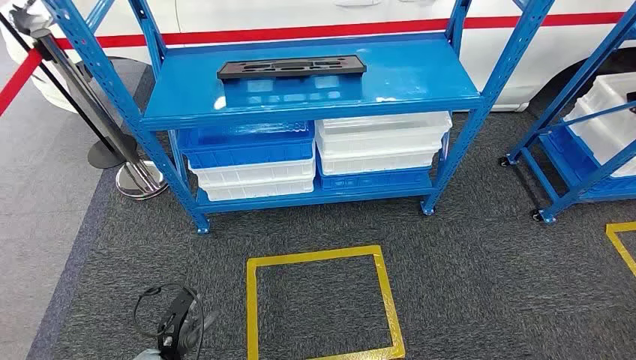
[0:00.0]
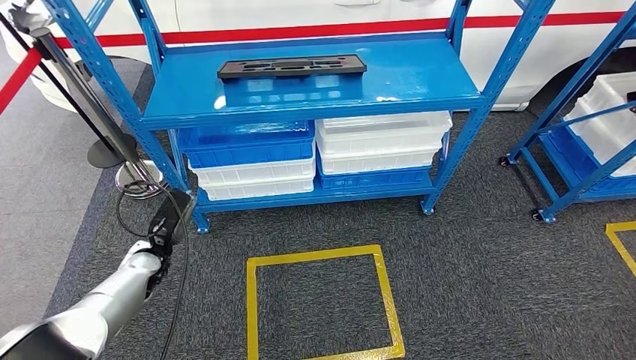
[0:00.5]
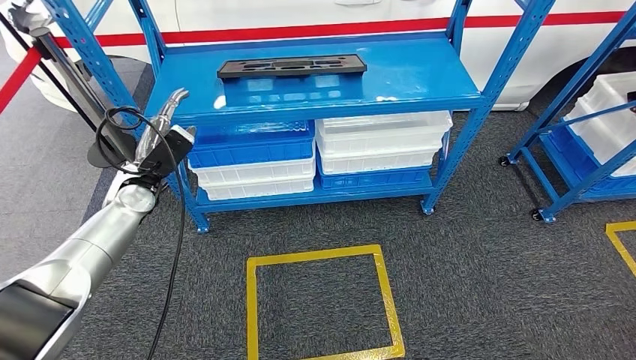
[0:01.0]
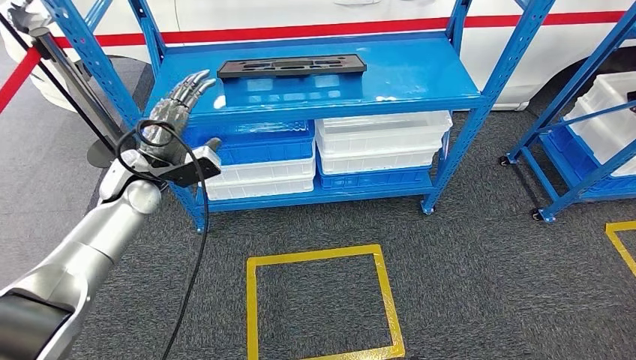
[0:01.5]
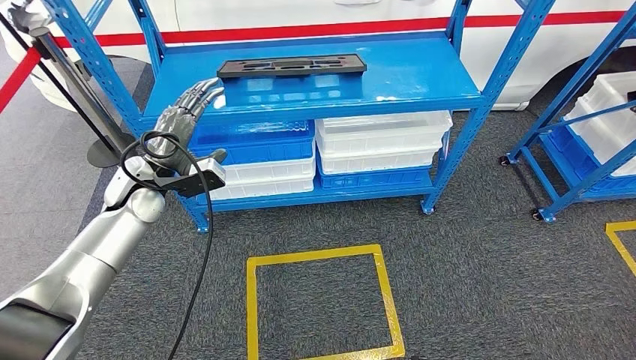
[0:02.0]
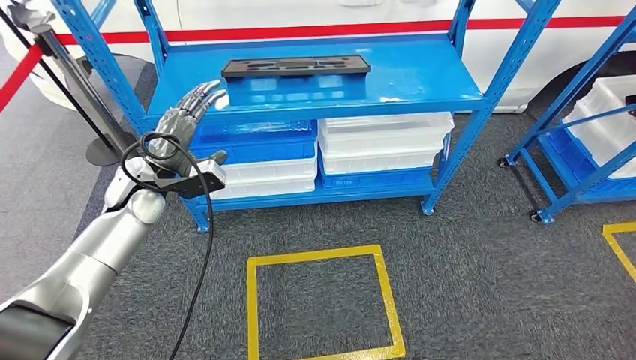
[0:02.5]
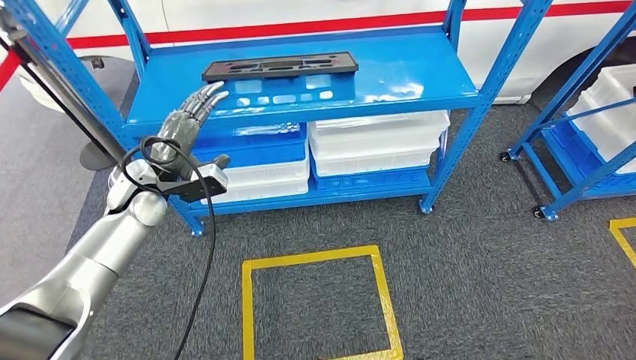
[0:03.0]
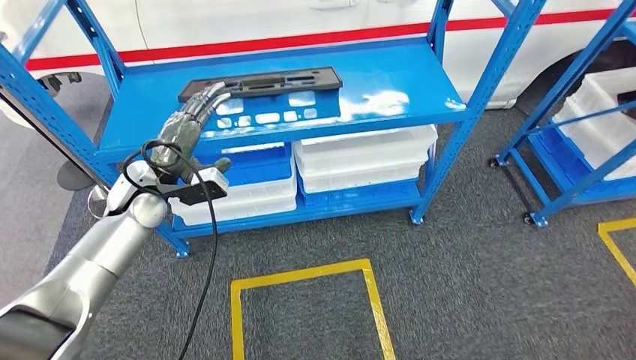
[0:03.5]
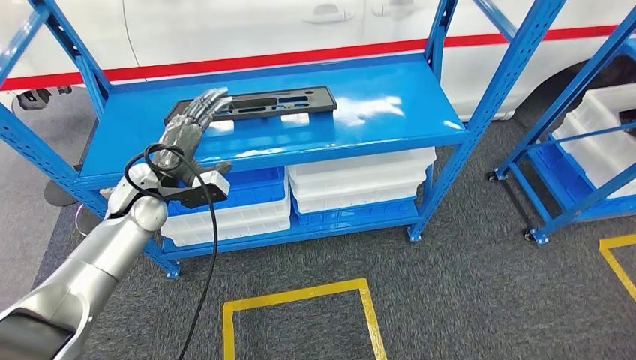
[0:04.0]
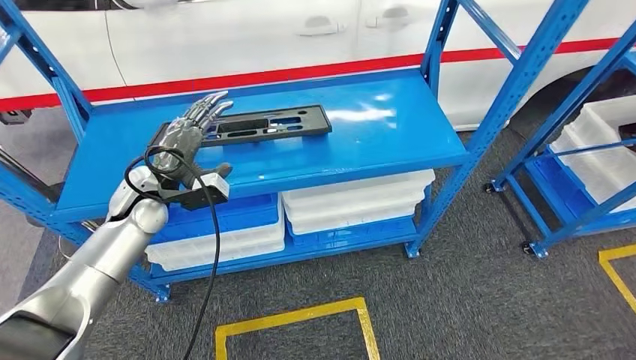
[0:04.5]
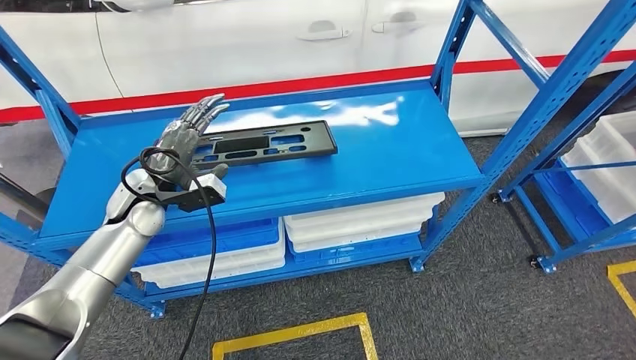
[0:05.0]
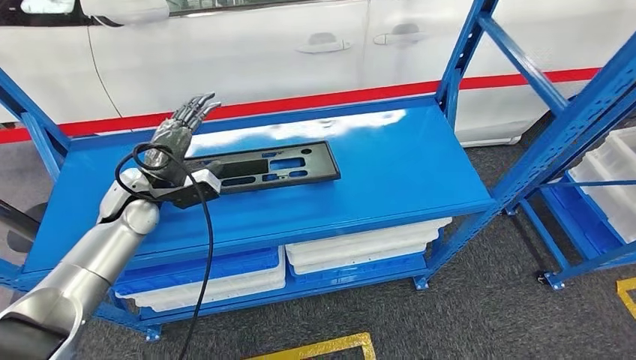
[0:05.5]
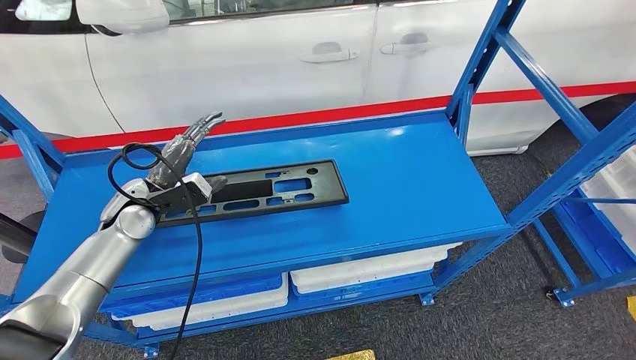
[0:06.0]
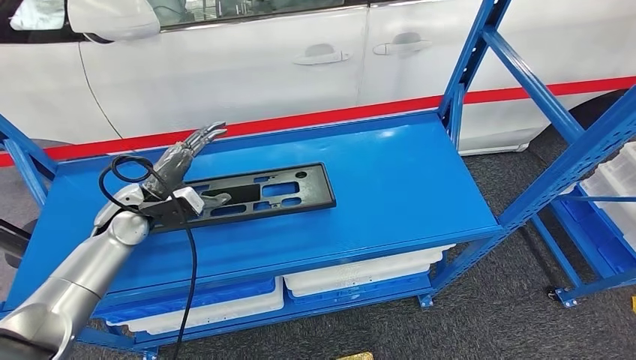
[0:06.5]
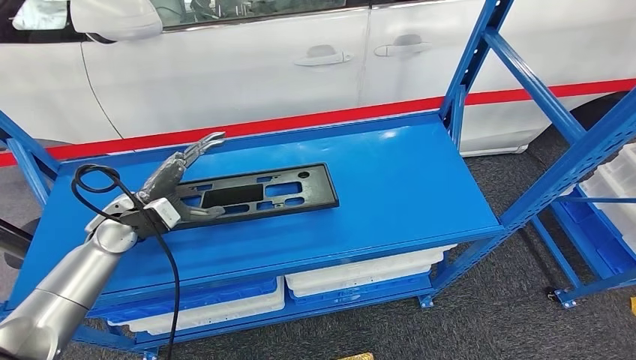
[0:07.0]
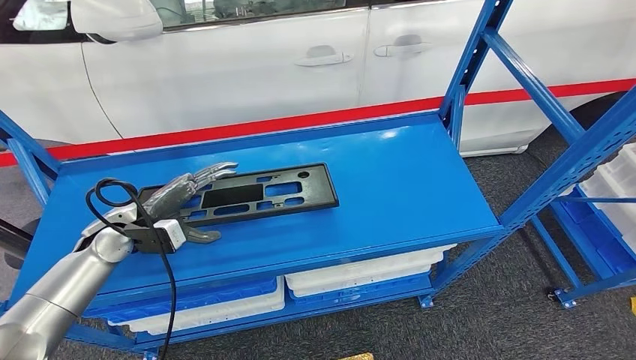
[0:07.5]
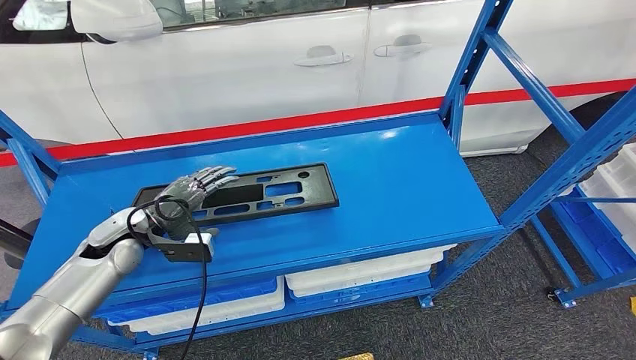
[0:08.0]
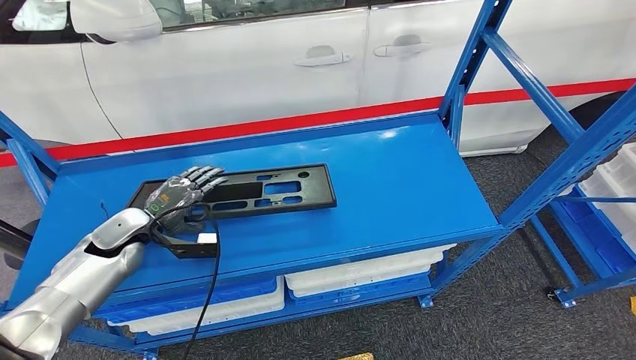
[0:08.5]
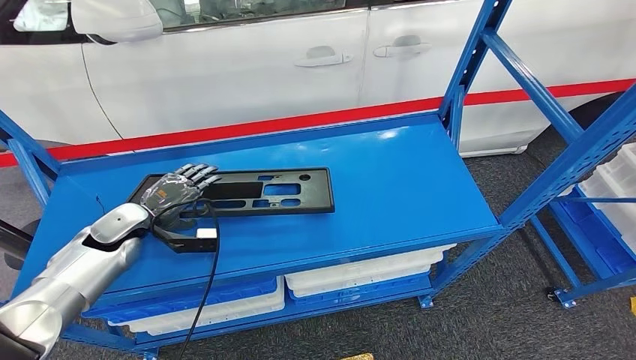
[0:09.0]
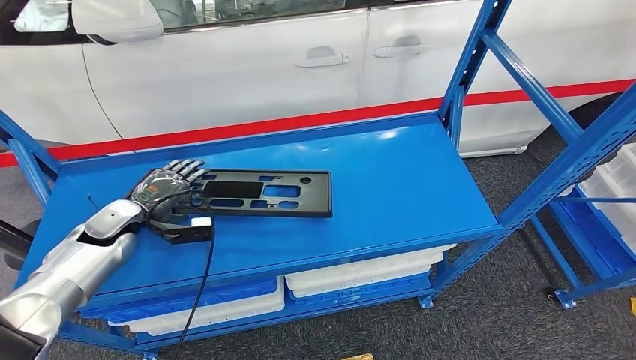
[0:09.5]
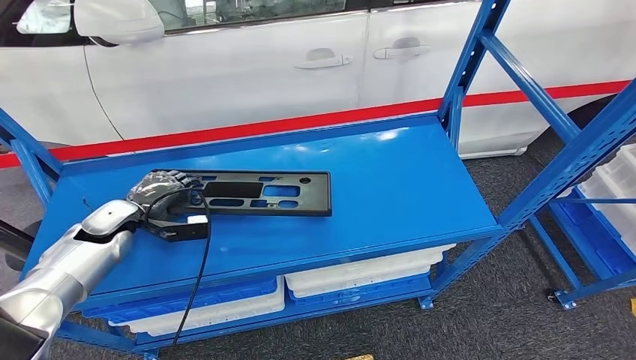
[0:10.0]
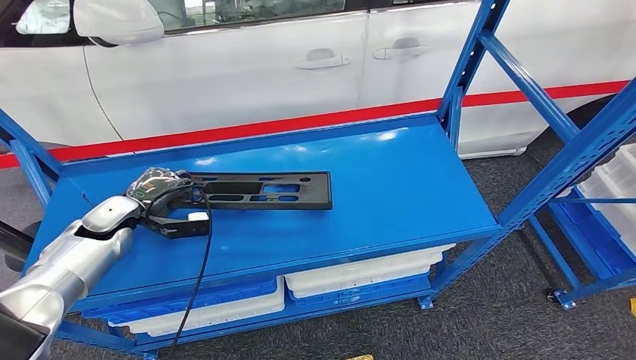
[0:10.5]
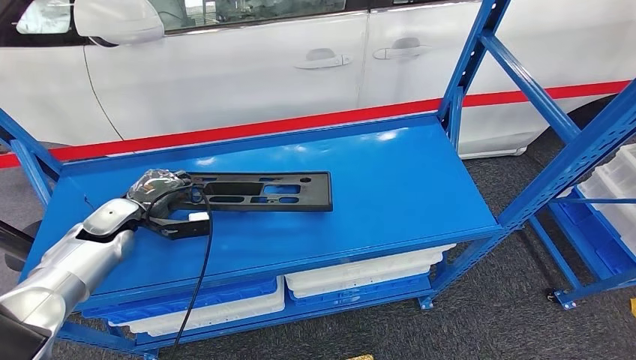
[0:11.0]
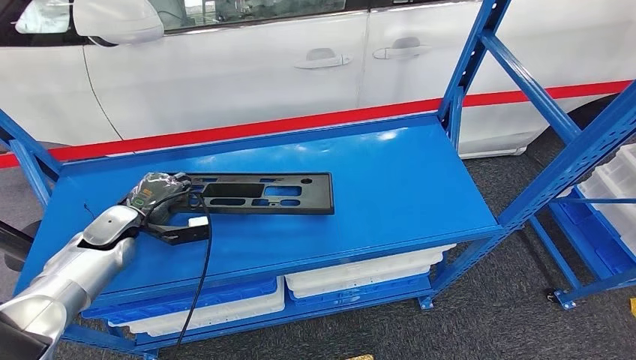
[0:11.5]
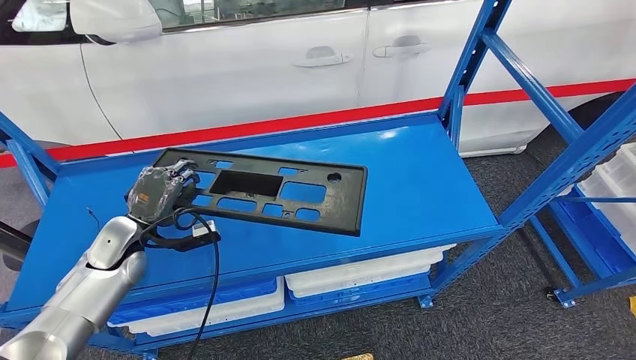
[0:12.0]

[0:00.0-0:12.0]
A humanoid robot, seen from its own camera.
0:08.0 to 0:10.0: The left hand moves some 5 cm.

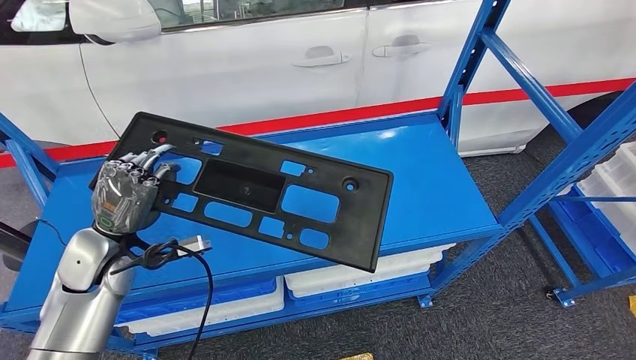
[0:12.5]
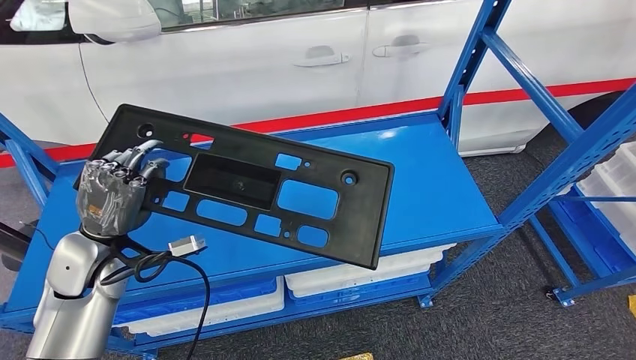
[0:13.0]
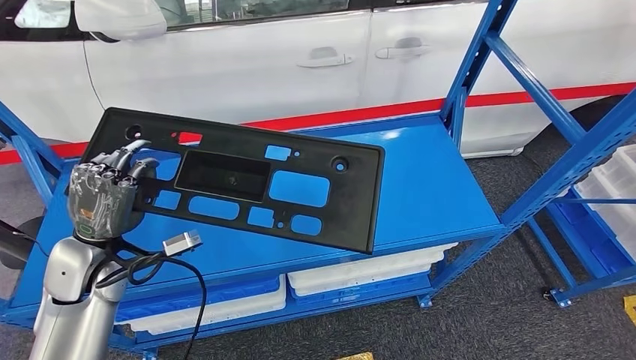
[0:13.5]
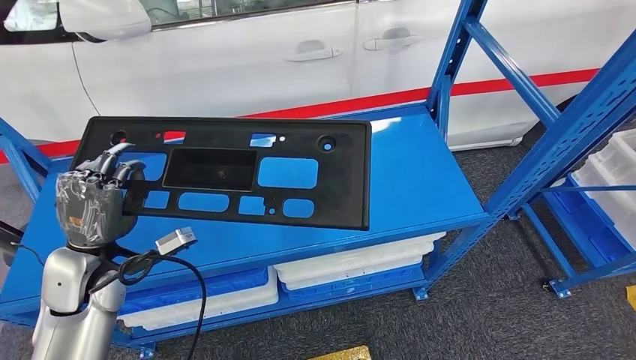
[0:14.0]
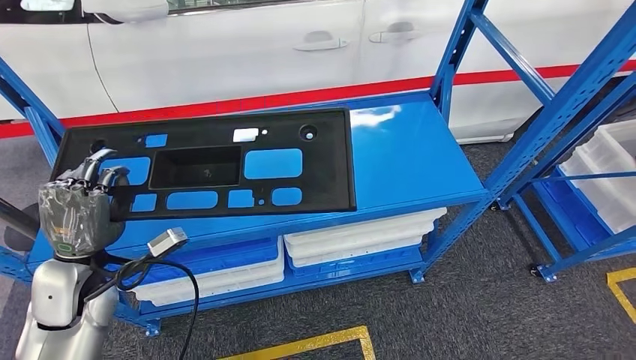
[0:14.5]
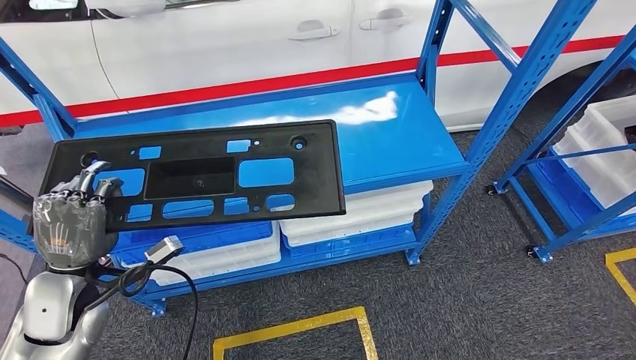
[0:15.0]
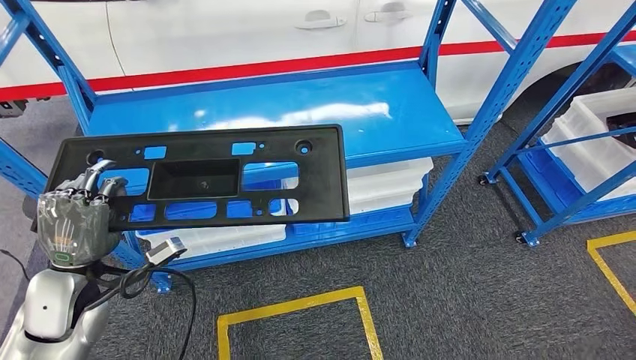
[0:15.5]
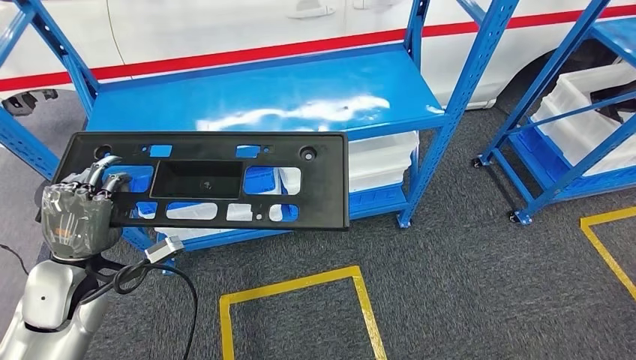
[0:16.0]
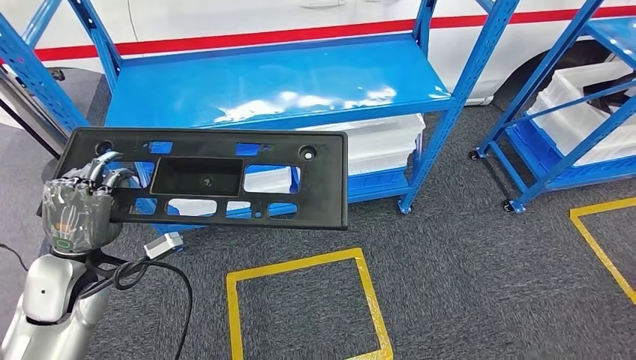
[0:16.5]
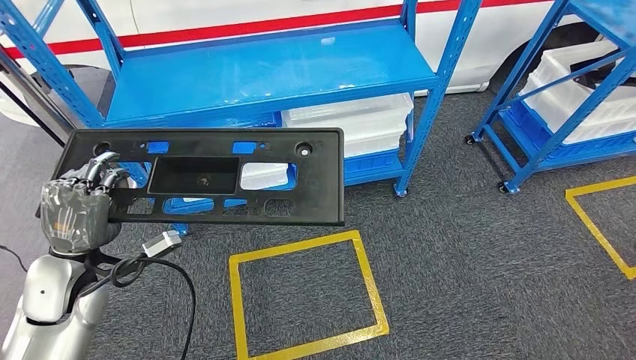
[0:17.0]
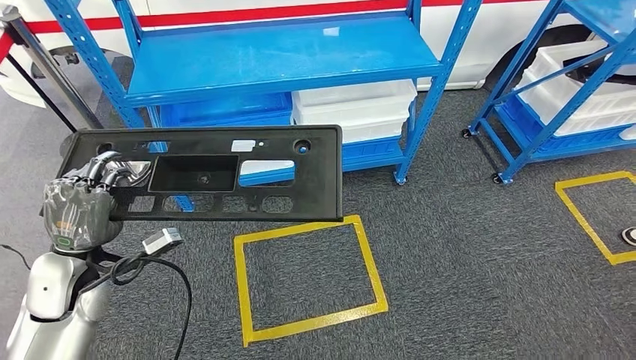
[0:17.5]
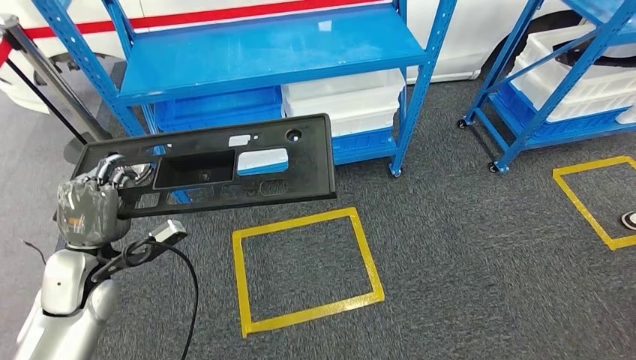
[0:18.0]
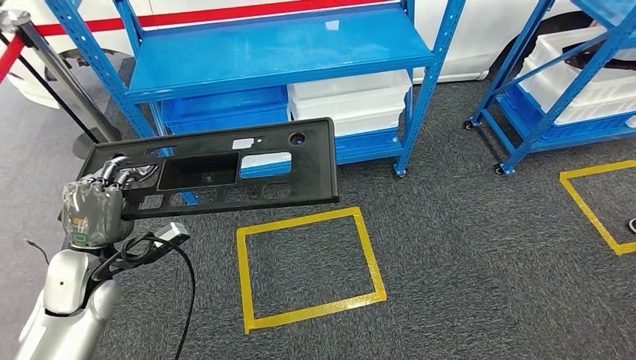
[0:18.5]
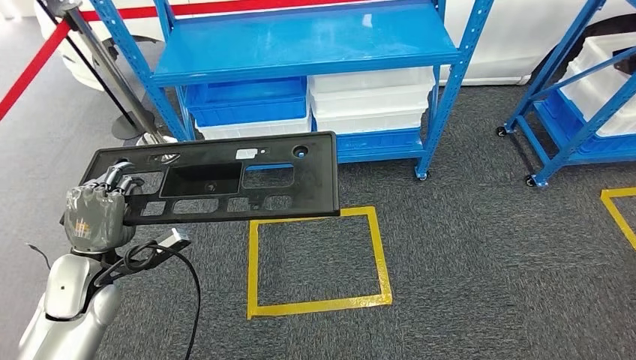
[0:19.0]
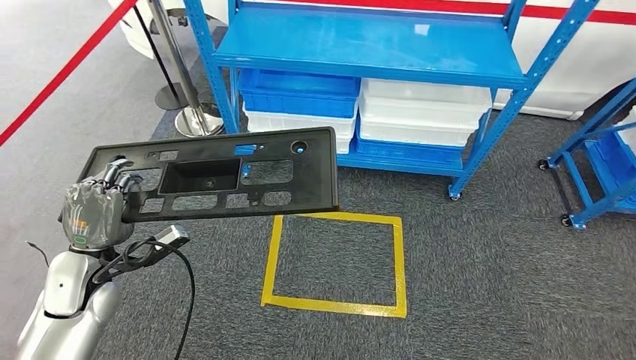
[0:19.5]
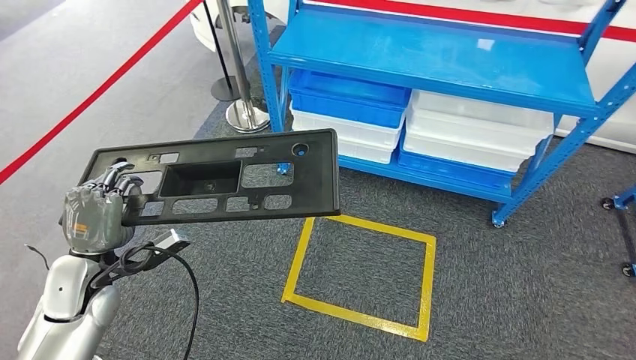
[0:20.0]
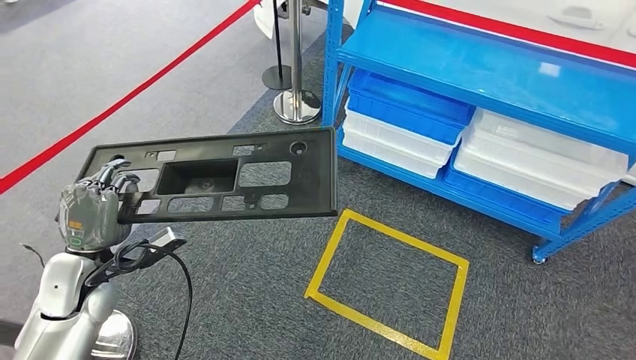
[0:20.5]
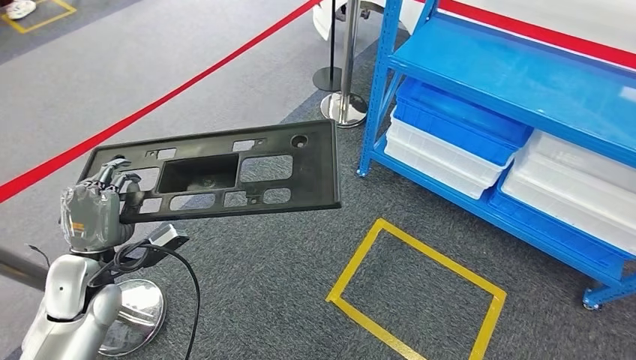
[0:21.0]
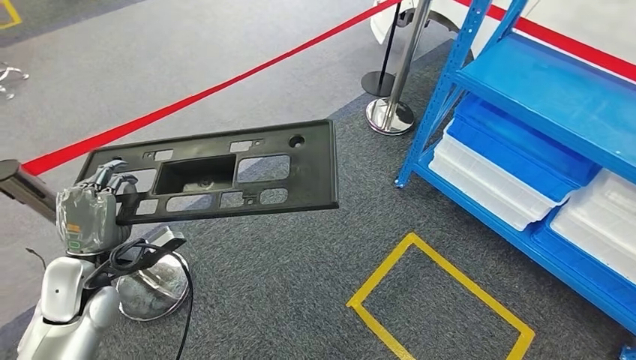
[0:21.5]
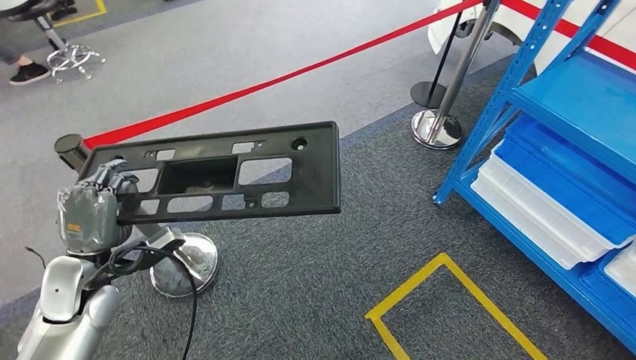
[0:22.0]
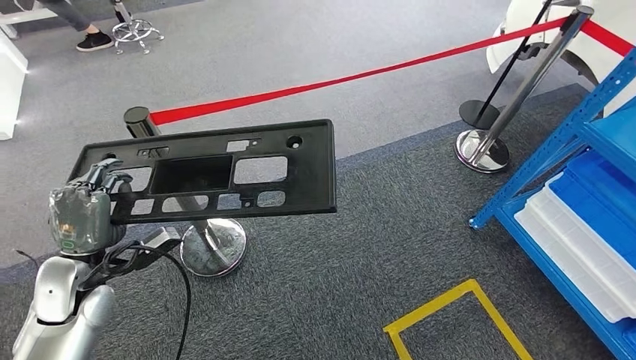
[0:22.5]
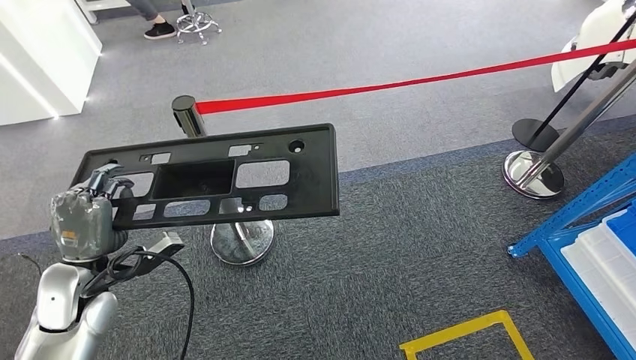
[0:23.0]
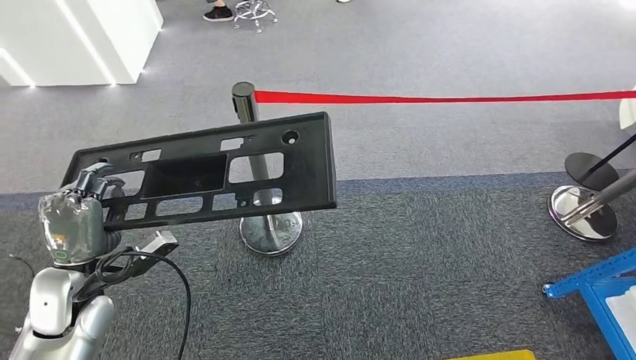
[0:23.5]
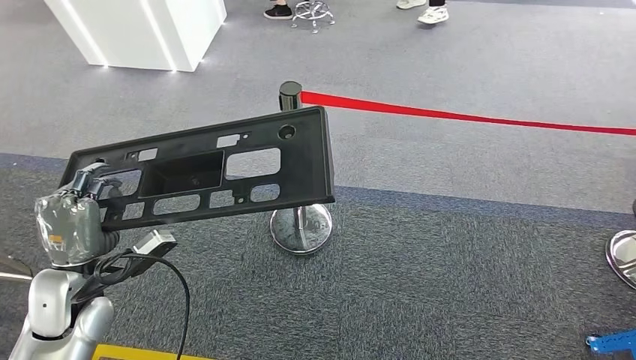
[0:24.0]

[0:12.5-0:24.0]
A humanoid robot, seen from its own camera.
Step, 0:12.5 to 0:15.0: Pick up the large parts from the shelf.
